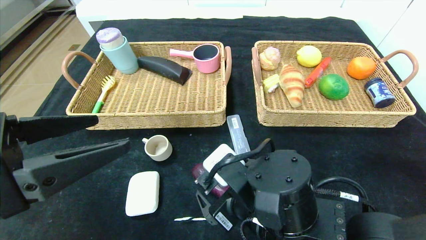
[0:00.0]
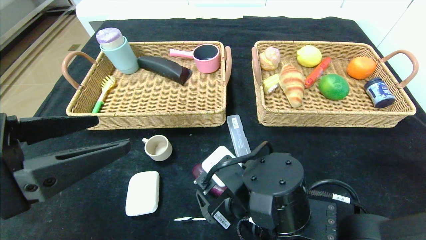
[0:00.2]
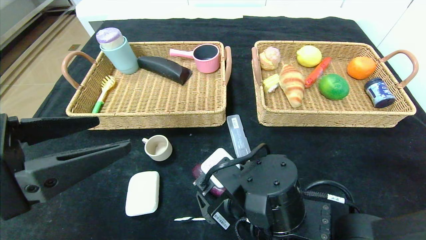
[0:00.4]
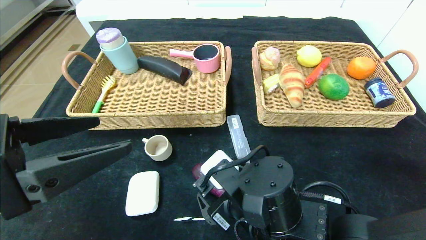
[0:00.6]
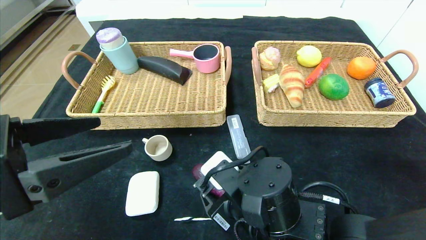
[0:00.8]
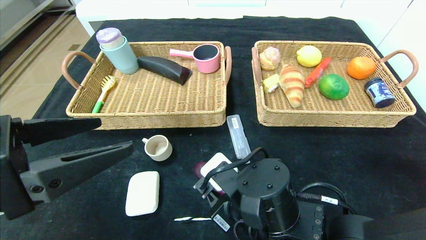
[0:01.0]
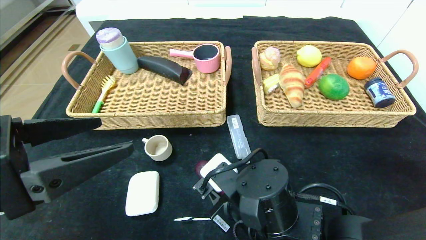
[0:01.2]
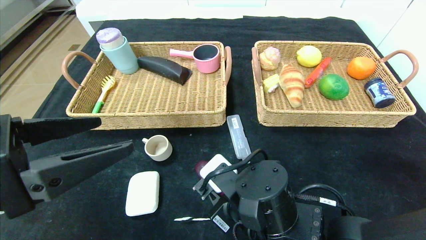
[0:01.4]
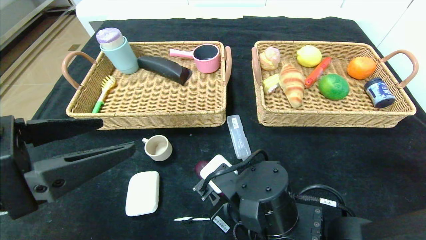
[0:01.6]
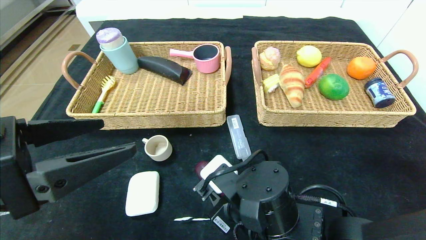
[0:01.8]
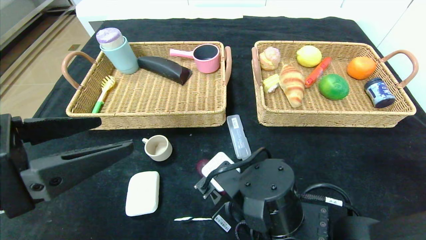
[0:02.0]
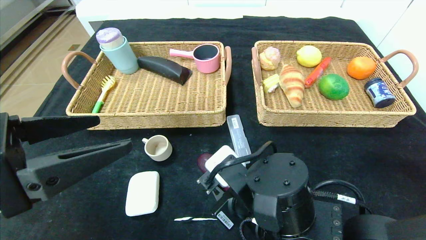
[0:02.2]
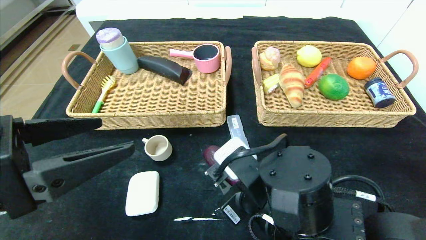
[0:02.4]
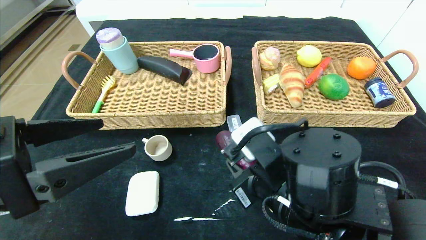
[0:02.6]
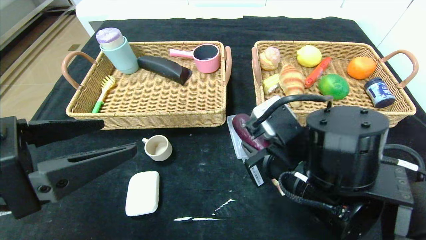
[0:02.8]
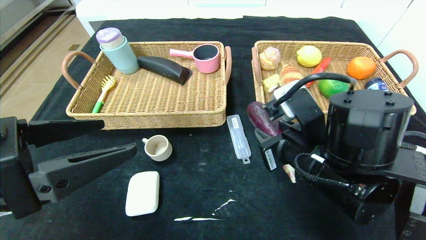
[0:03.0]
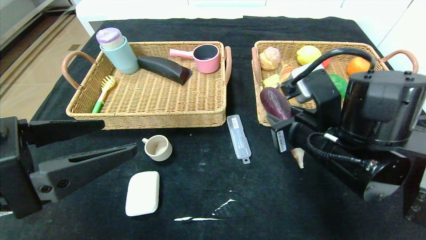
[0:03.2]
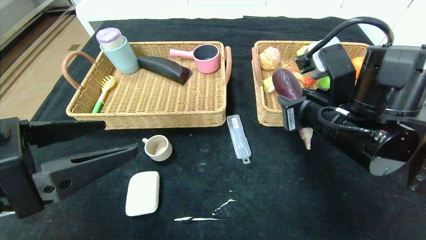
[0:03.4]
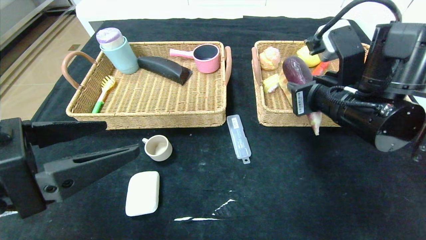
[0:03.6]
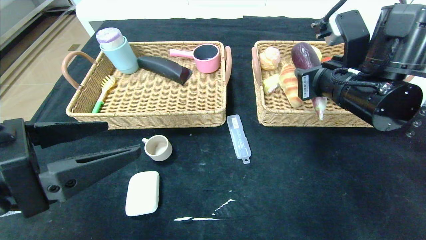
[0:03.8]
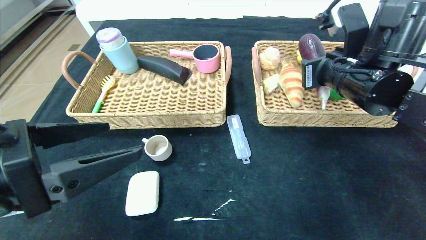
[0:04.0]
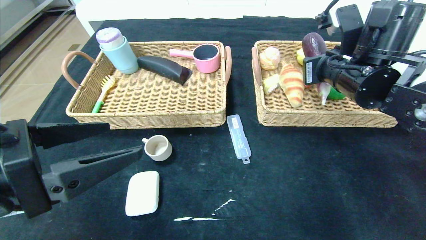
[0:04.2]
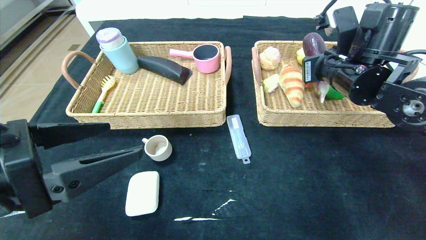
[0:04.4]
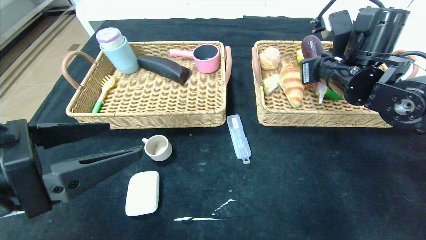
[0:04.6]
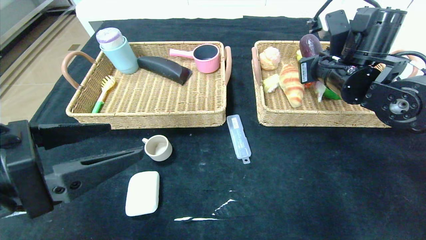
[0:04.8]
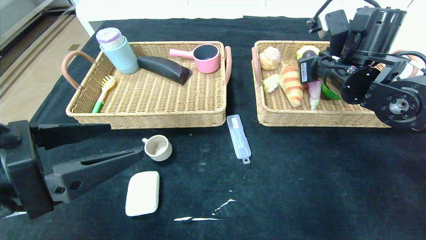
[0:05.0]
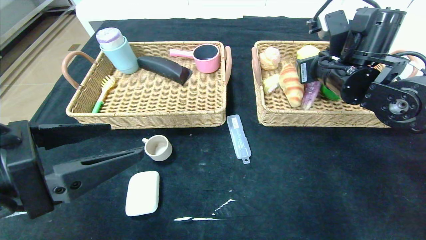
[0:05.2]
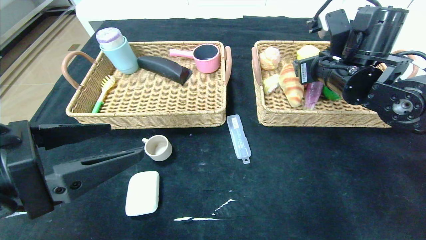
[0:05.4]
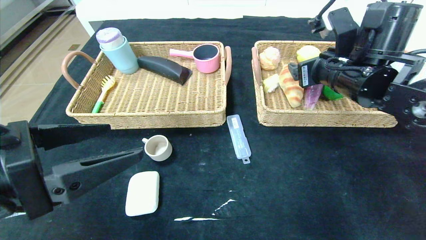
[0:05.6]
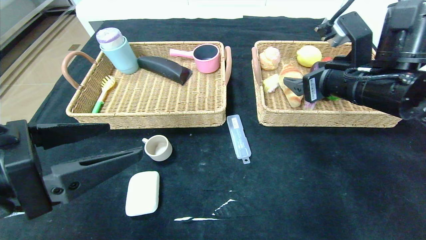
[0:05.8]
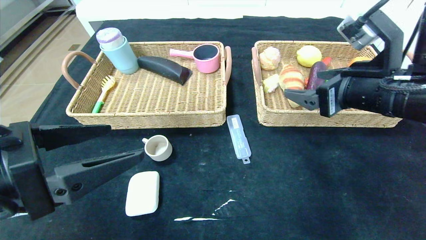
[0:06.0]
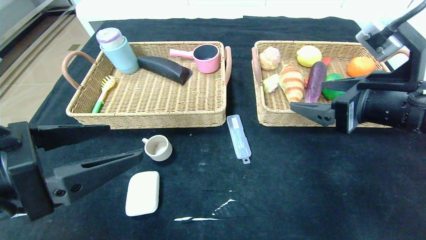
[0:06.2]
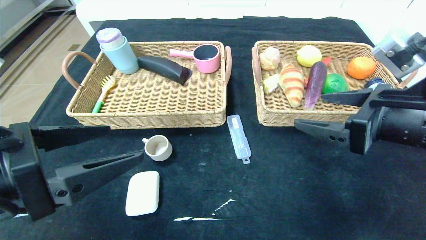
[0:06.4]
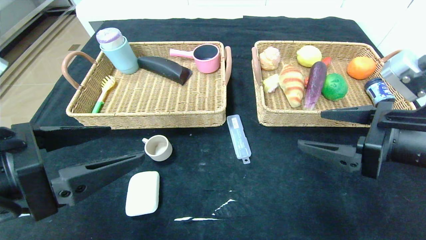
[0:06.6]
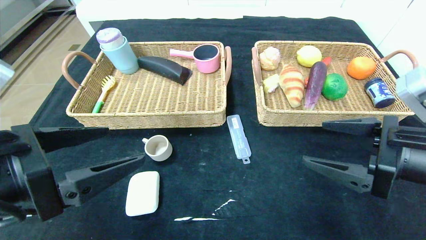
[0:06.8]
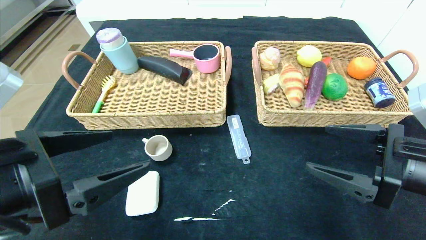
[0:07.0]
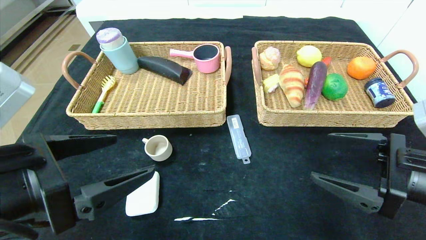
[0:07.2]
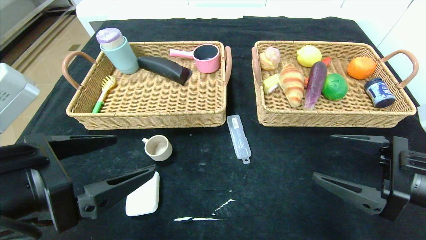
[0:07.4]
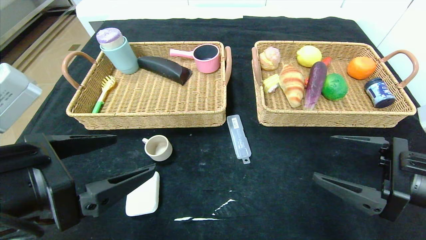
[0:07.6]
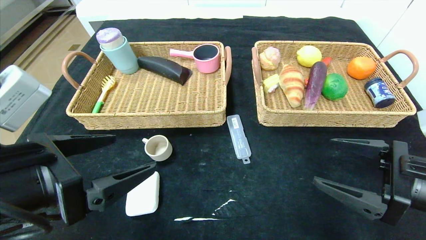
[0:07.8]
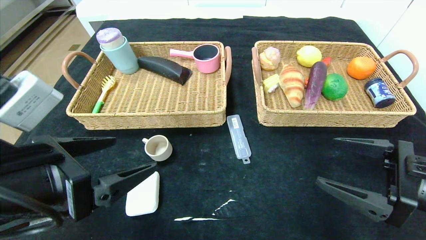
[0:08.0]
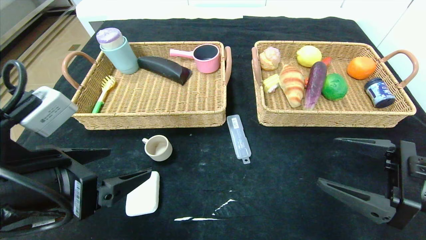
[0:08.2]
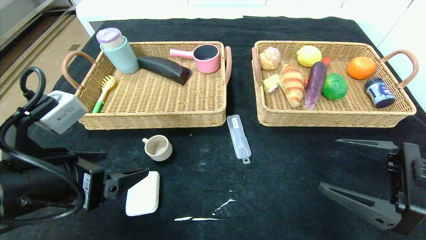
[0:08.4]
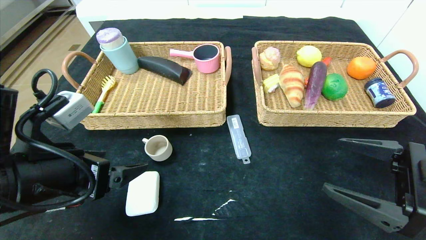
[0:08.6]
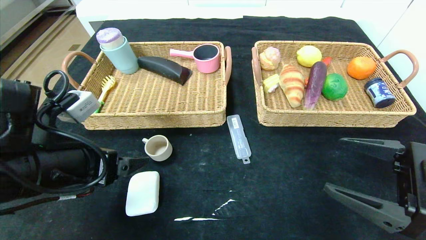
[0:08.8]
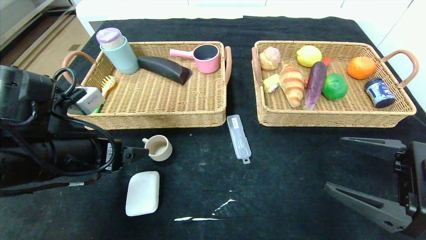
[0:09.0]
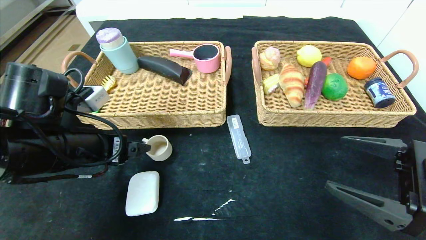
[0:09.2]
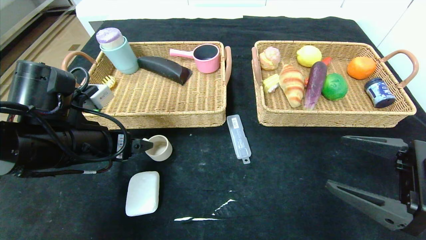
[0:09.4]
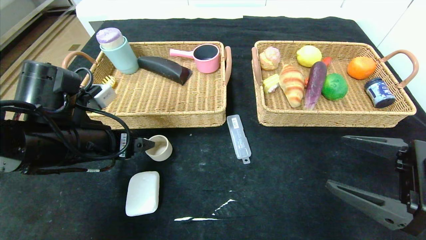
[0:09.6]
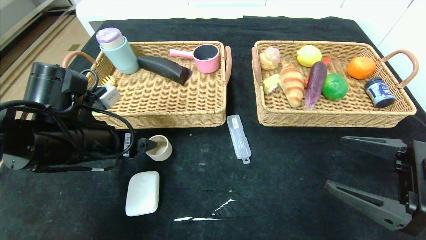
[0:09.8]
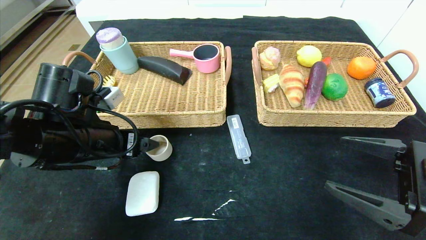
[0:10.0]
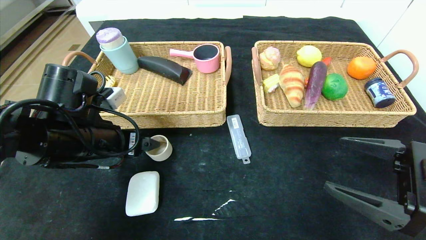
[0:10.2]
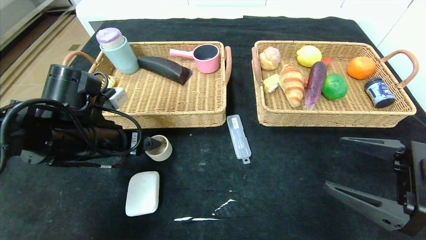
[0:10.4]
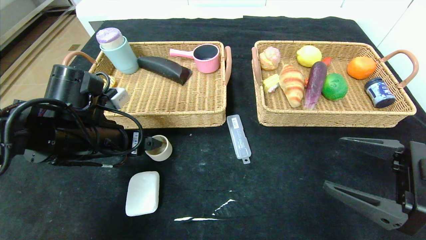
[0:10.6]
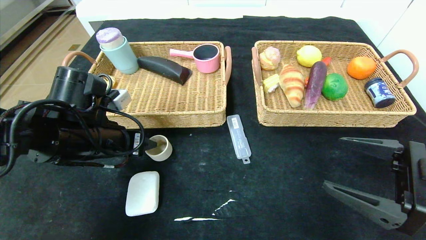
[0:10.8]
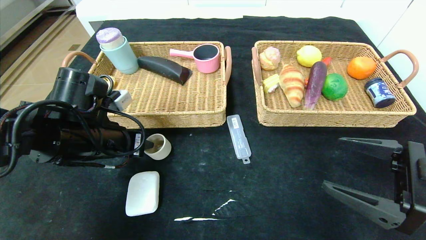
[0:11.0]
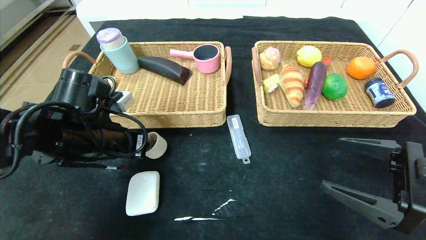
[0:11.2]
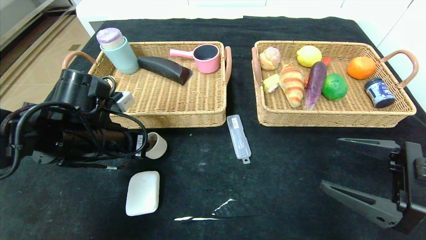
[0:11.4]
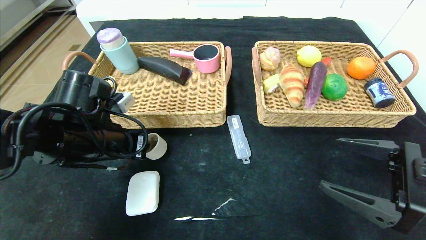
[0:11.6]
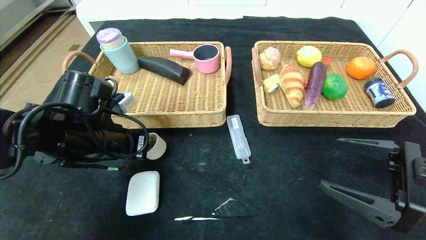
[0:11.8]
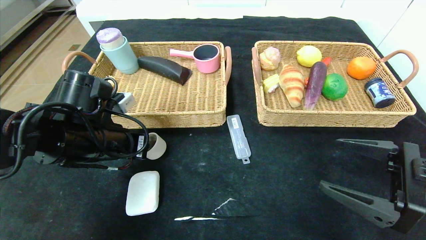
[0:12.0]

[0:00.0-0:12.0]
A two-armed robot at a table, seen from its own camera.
Step, 0:00.0 to 0:05.4: Grasp the eggplant and put it in the right basket.
0:00.0 to 0:01.6: The right gripper closes up.
0:01.6 to 0:03.0: The right gripper moves upward and to the right, approximately 10 cm.
0:03.0 to 0:04.4: The right gripper travels forward, upward and to the right by roughly 15 cm.
0:04.4 to 0:06.0: The right gripper moves backward, roughly 10 cm, and opens.
0:06.0 to 0:07.6: The right gripper heads downward, backward and to the right, covering some 15 cm.
0:07.6 to 0:09.0: The left gripper is displaced forward by approximately 10 cm.
0:09.0 to 0:10.4: The left gripper travels forward by roughly 5 cm.
0:10.4 to 0:12.0: The left gripper closes up.

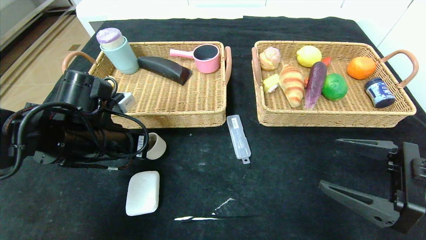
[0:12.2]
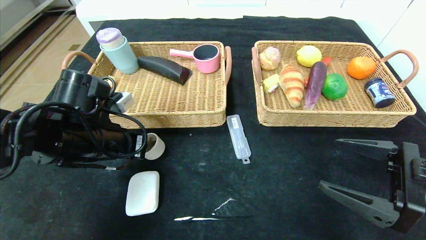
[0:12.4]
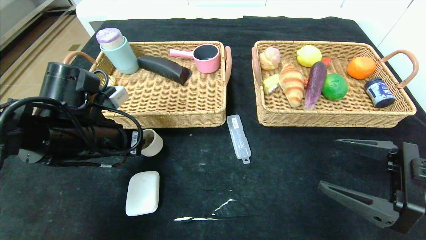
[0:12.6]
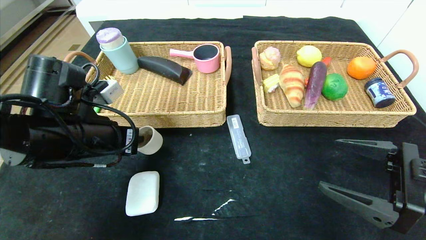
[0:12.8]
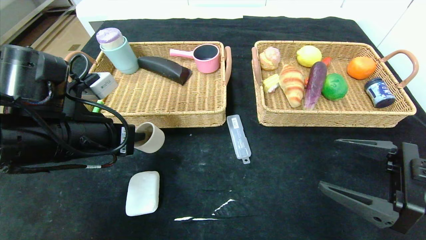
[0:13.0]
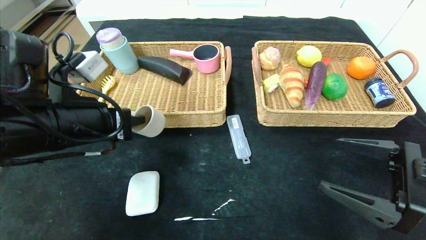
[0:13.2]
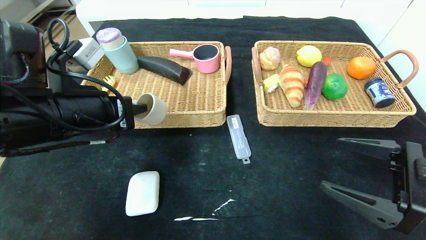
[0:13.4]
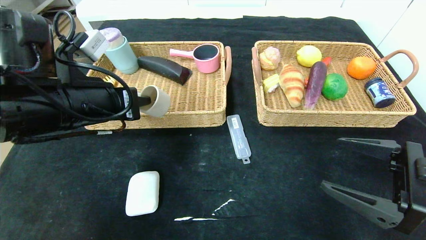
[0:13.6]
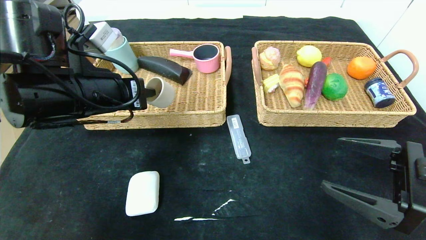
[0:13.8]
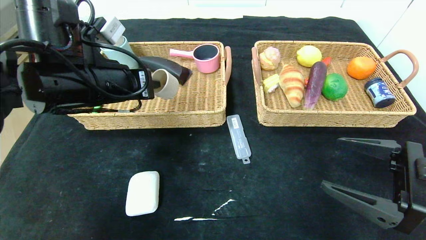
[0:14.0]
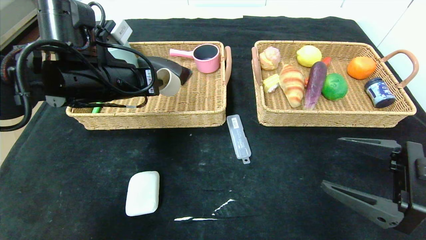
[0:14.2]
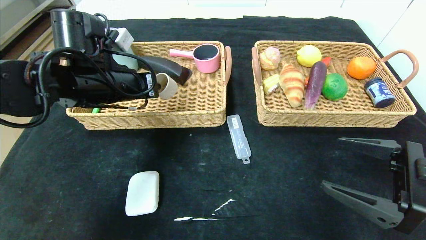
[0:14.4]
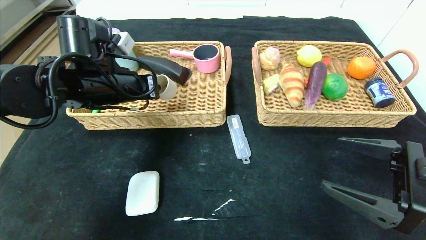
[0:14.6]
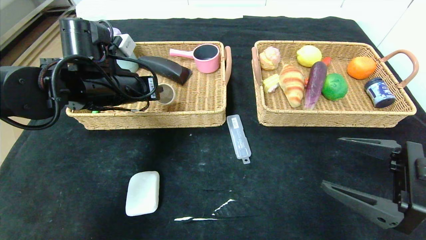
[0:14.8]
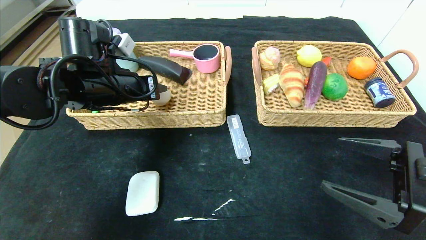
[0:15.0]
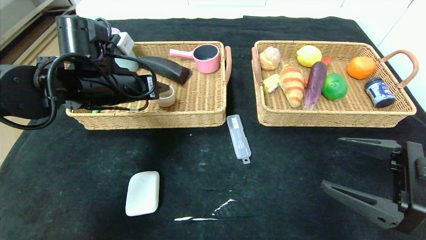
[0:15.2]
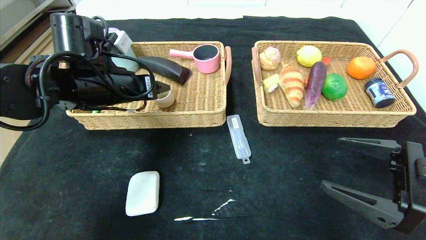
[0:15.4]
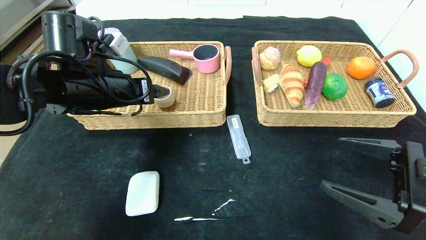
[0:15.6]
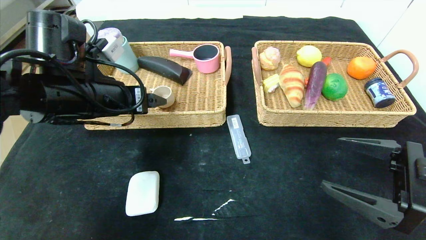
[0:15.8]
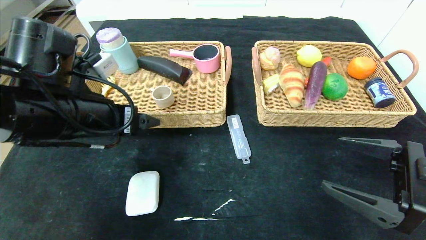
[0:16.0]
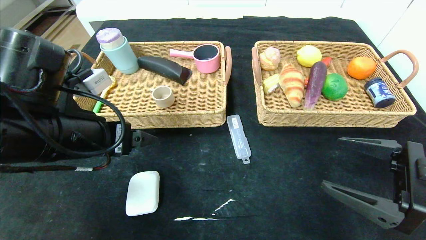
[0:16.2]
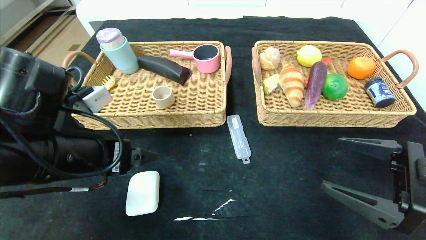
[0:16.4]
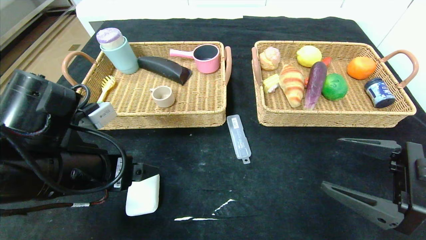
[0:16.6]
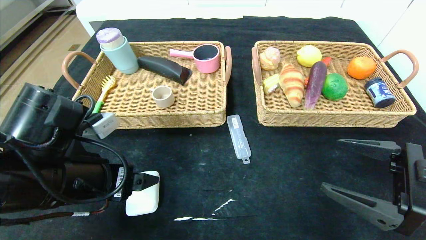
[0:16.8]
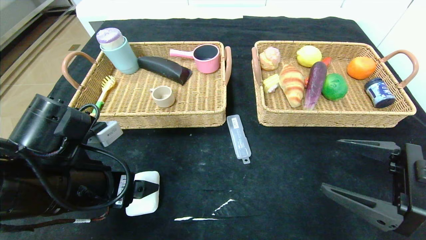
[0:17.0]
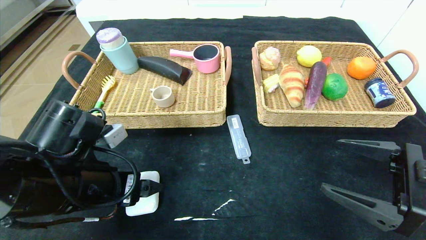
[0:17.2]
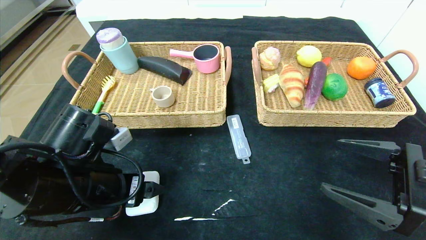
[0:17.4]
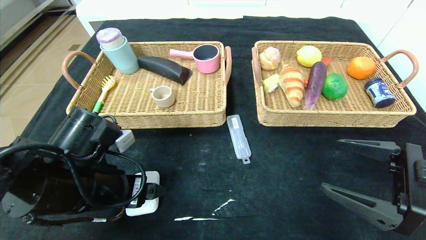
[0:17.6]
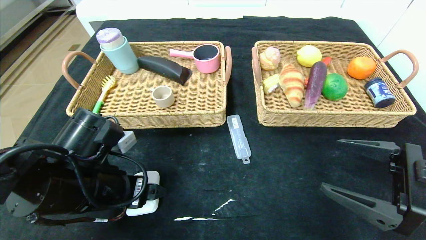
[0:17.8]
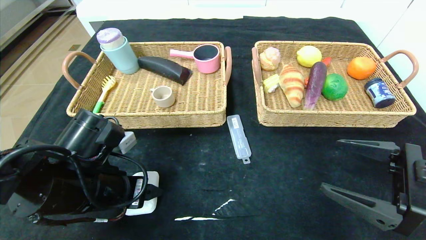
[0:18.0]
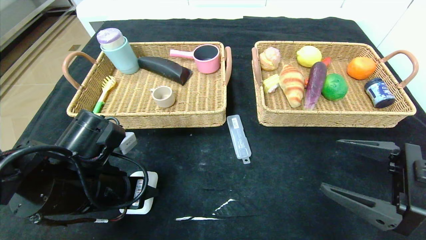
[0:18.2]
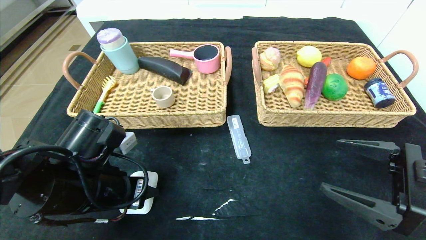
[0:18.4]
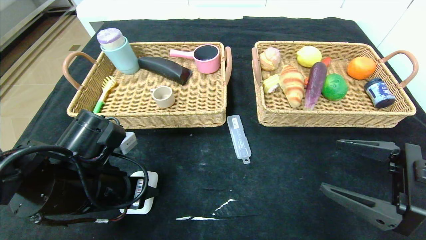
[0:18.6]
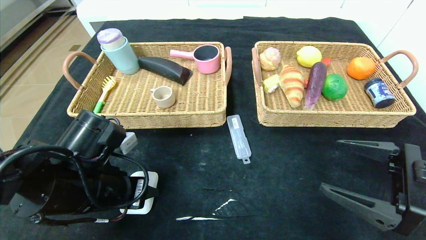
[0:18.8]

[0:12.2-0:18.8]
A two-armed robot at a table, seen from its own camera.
Step, 0:12.2 to 0:15.0: Grasp the grey cup and put it in the left basket.
0:12.2 to 0:13.8: The left gripper travels upward by some 10 cm.
0:13.8 to 0:15.4: The left gripper heads forward, covering roughly 5 cm, and opens.
0:15.4 to 0:17.2: The left gripper shifts about 15 cm backward and downward.
0:17.2 to 0:18.8: The left gripper closes its fingers.
